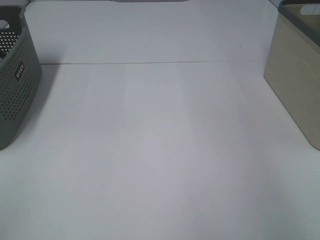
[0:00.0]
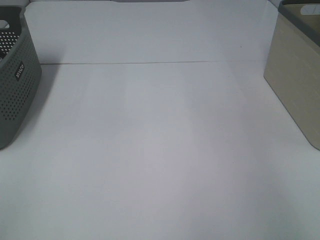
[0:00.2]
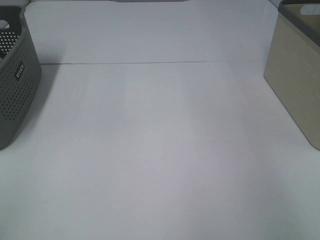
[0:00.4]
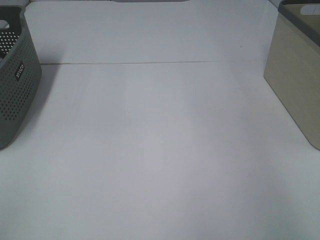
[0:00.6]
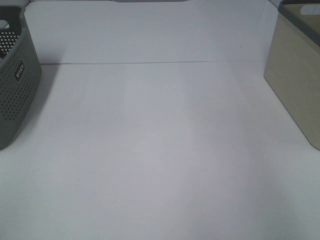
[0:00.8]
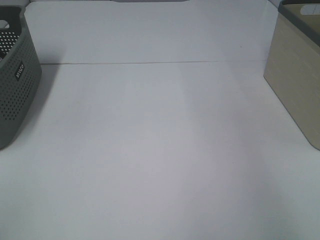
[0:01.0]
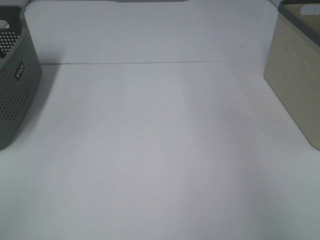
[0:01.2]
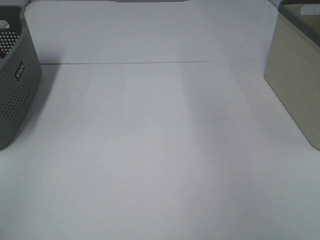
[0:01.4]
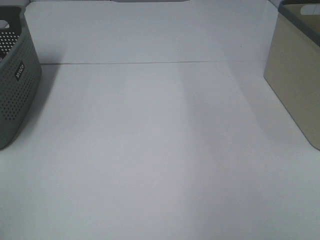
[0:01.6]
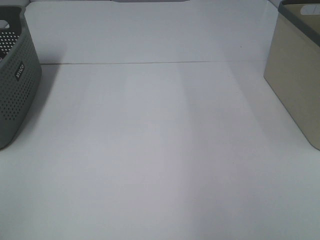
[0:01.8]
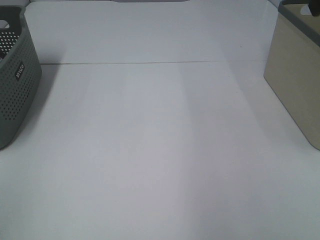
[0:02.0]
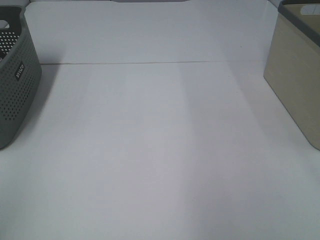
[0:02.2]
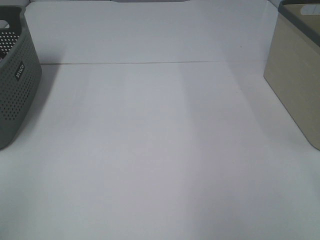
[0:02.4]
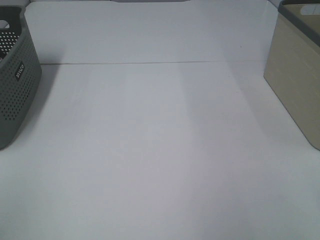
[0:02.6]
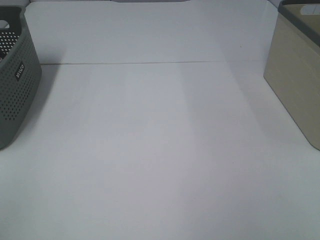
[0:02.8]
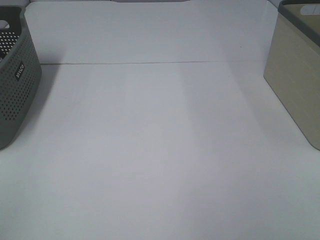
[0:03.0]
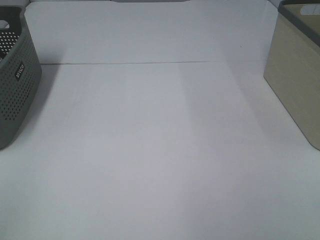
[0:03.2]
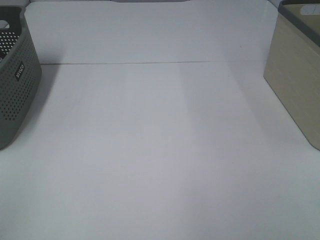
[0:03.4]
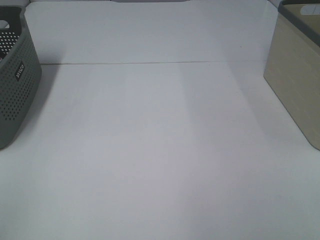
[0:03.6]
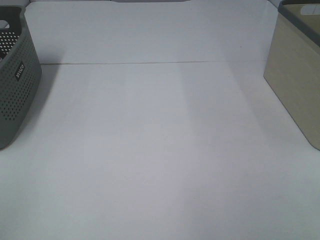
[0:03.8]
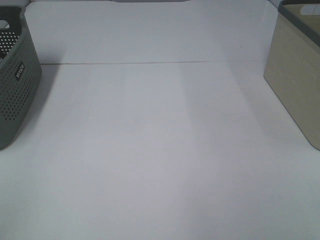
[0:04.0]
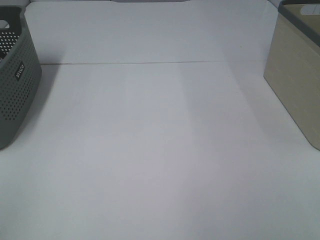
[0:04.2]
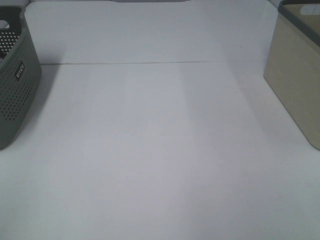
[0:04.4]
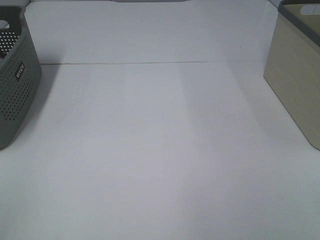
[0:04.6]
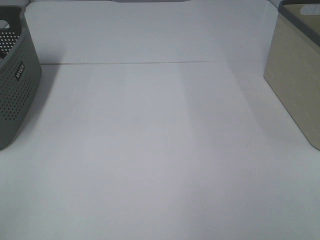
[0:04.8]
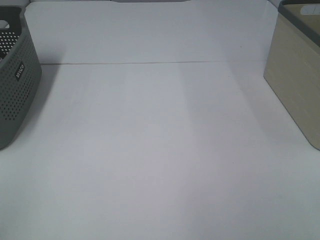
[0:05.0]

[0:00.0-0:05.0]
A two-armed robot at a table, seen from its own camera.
0:03.4 to 0:05.0: Both grippers stay put.

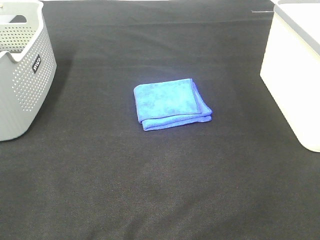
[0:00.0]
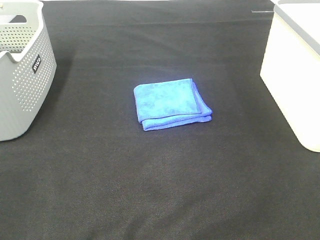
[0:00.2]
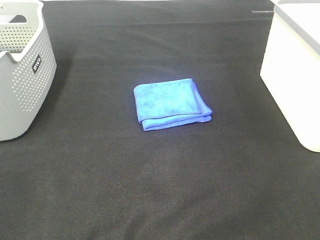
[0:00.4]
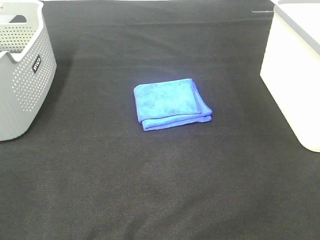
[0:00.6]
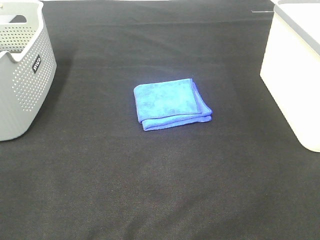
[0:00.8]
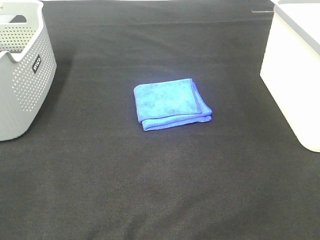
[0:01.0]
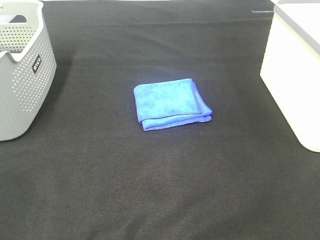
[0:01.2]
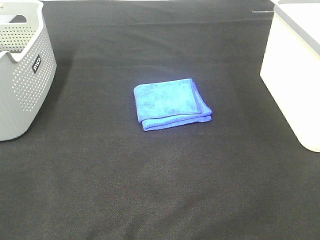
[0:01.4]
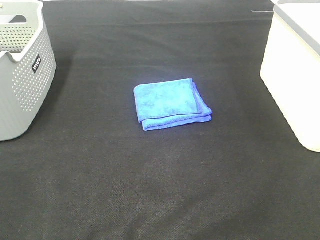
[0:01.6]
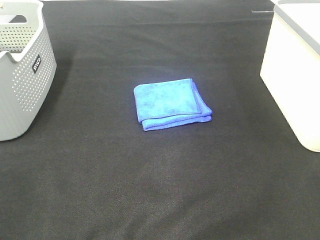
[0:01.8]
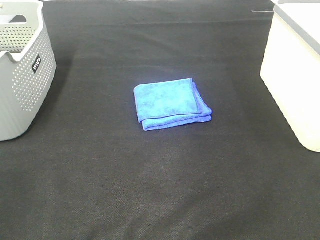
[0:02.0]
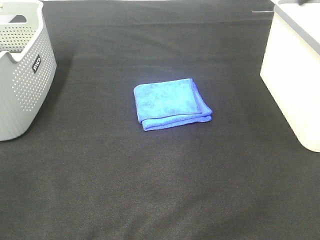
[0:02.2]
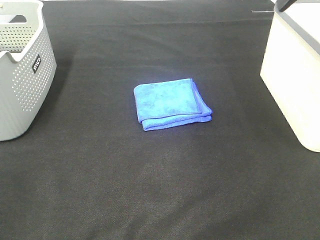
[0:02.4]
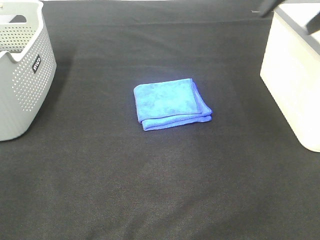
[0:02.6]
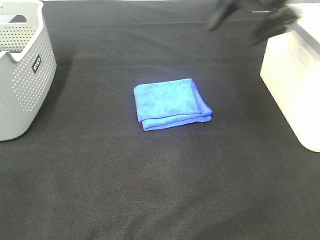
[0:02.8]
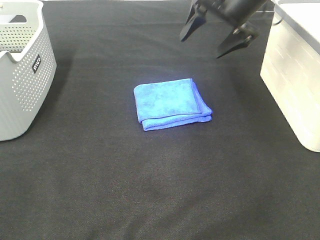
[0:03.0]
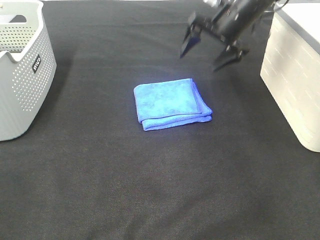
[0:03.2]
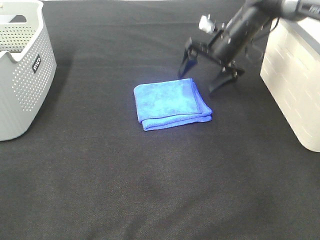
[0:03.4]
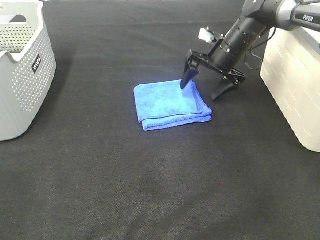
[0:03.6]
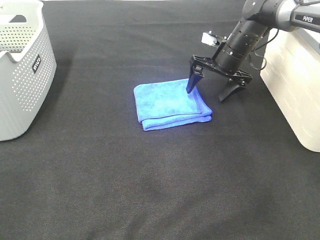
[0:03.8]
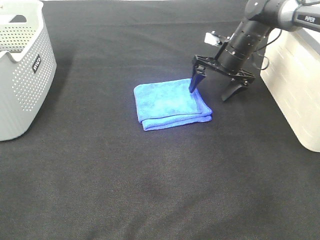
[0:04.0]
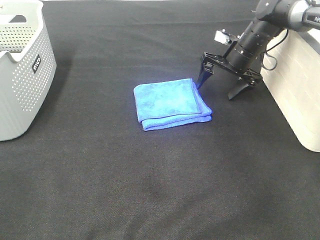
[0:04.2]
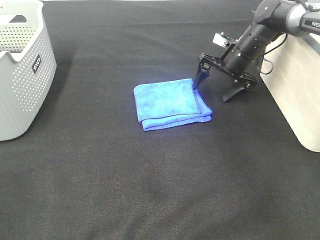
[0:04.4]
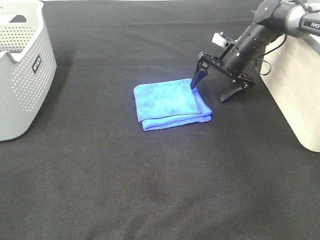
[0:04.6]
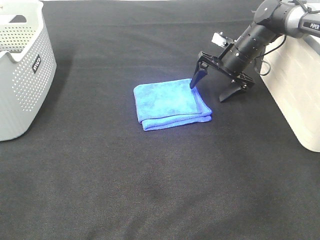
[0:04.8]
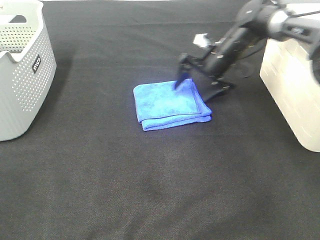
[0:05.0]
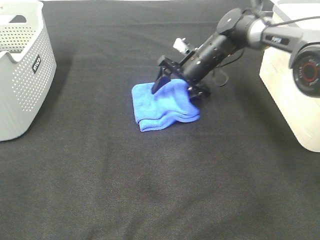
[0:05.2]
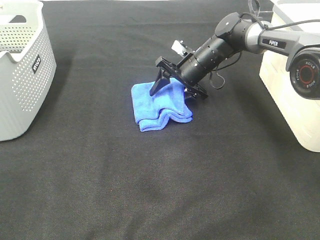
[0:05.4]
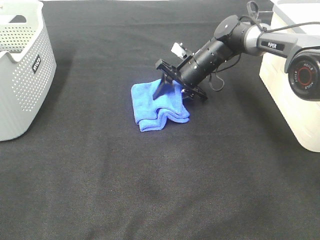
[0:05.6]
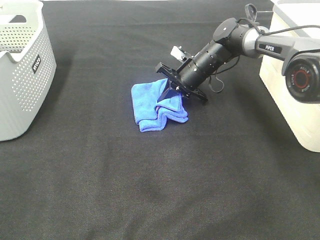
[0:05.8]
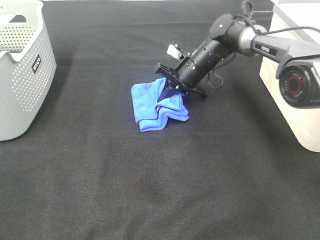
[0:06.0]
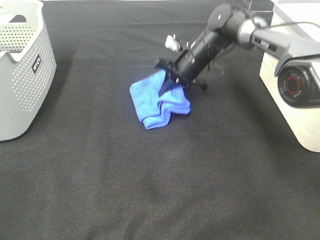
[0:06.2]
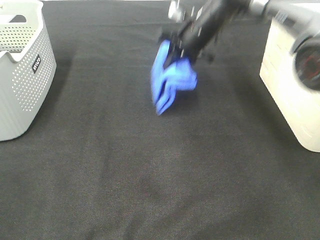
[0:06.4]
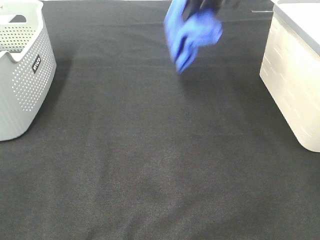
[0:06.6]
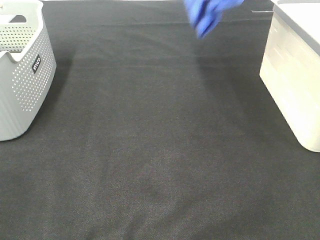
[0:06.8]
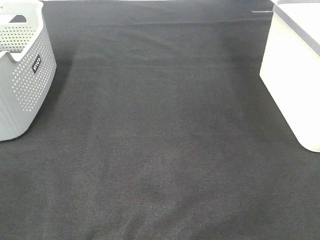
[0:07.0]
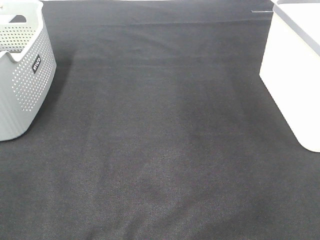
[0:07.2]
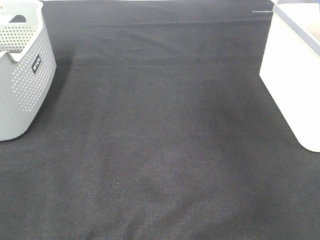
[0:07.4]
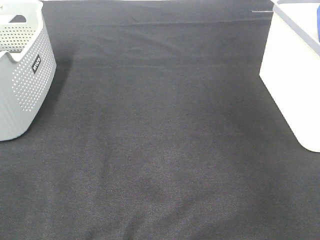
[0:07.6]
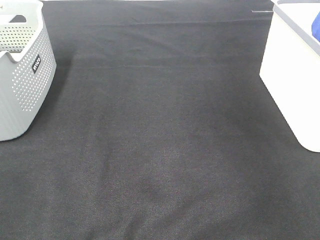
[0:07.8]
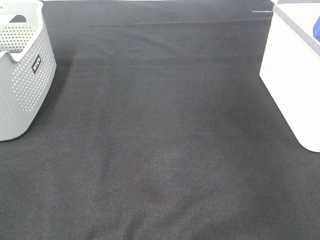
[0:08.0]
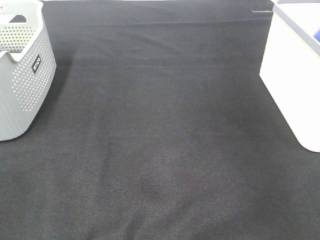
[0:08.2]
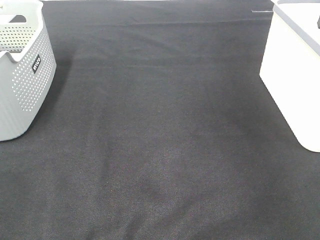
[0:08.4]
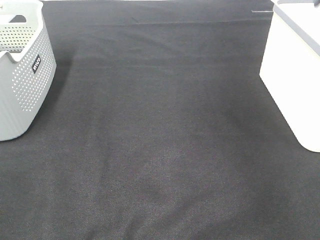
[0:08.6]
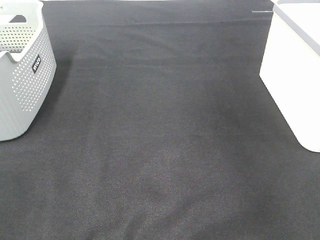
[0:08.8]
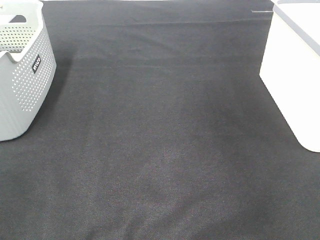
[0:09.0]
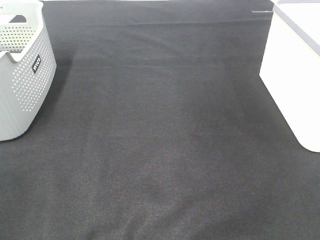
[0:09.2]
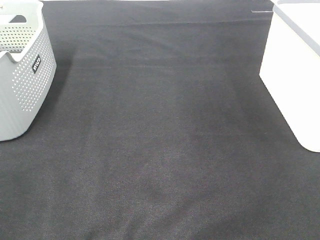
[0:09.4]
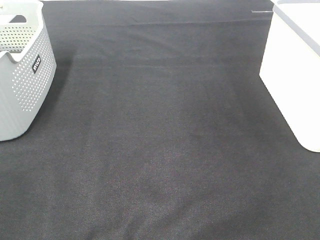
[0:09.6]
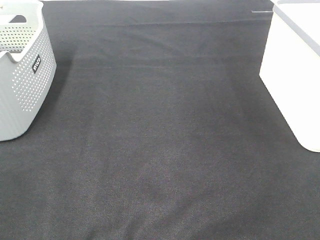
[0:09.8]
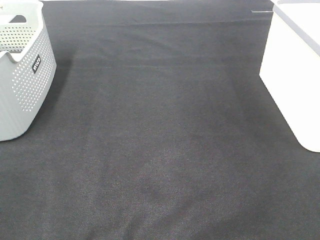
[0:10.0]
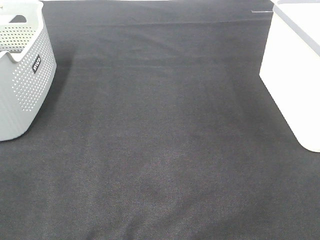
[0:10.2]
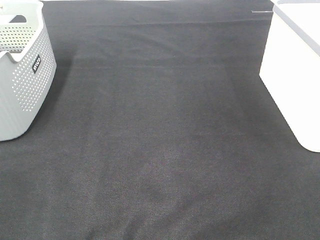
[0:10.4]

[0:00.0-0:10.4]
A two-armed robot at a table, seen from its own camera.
Step, 0:00.0 to 0:05.8: Right hand: grab the folded blue towel.
Step, 0:06.0 to 0:08.2: Right hand: place the blue towel in right basket.
0:00.0 to 0:01.4: Both grippers stay about where they are.
0:01.4 to 0:03.0: The right gripper moves forward, roughly 50 cm.
0:03.0 to 0:04.4: The right gripper shifts some 15 cm downward.
0:04.4 to 0:06.0: The right gripper shifts some 10 cm to the left, and closes its fingers.
0:06.0 to 0:07.4: The right gripper shifts some 40 cm upward and to the right.

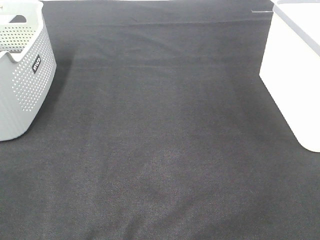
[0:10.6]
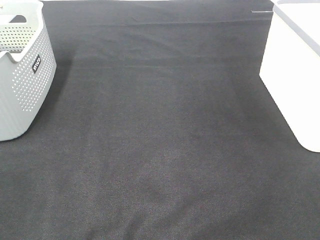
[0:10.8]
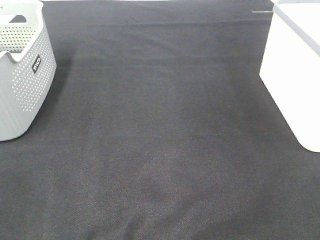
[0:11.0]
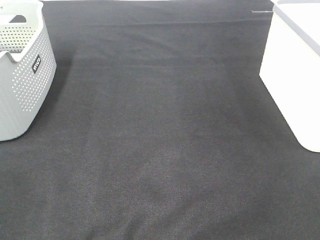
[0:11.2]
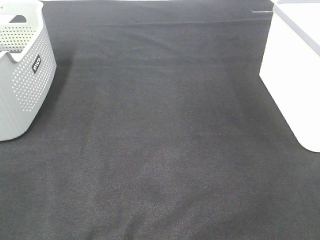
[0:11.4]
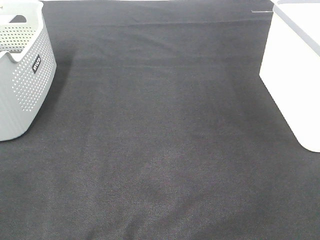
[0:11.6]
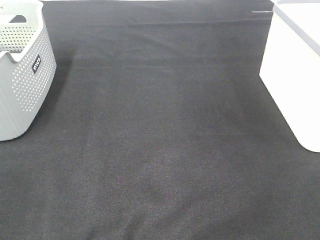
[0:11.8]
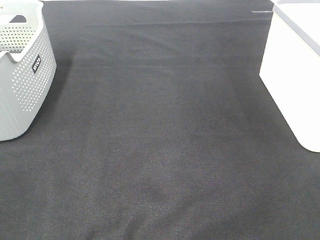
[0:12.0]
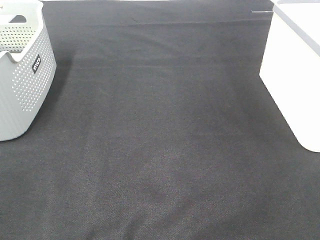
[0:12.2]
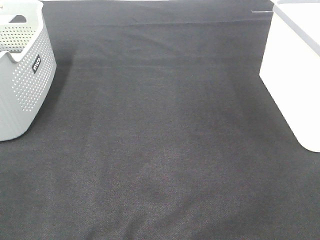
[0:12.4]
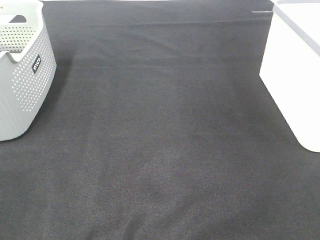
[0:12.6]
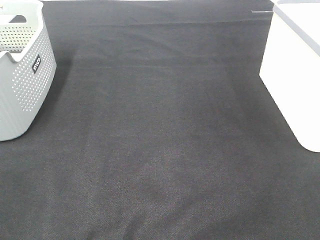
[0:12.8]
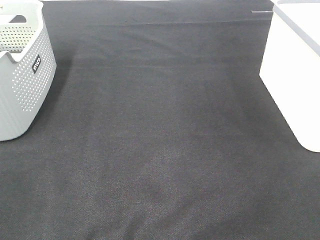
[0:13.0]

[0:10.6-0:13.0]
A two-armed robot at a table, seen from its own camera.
0:10.6 to 0:13.0: The two grippers keep their place.

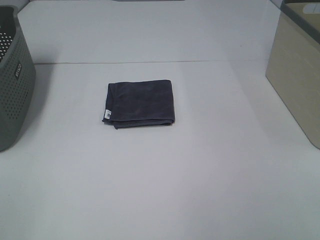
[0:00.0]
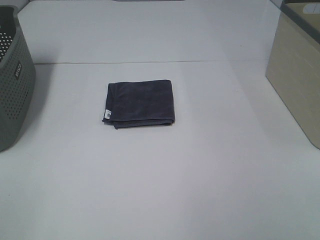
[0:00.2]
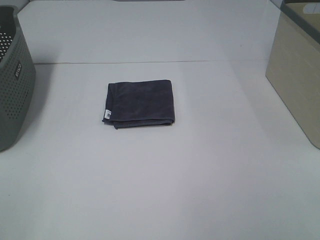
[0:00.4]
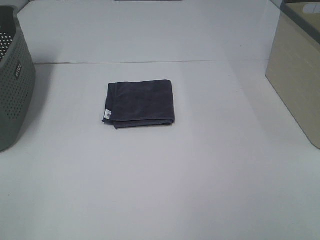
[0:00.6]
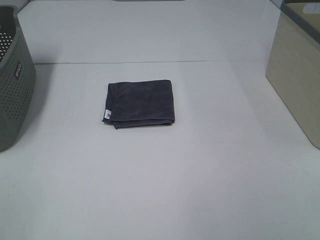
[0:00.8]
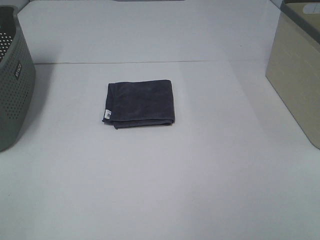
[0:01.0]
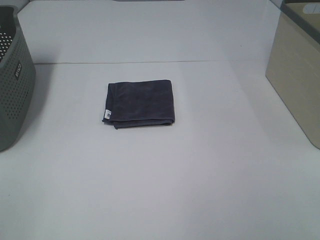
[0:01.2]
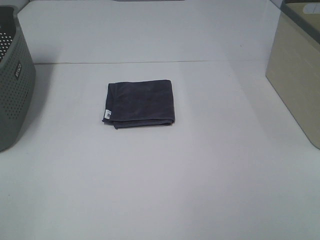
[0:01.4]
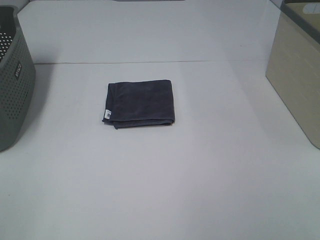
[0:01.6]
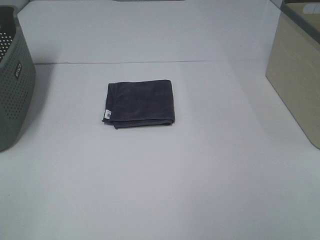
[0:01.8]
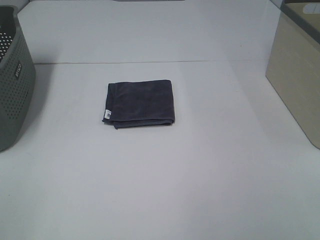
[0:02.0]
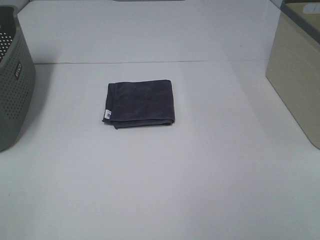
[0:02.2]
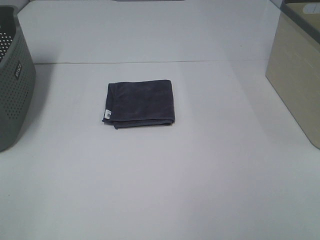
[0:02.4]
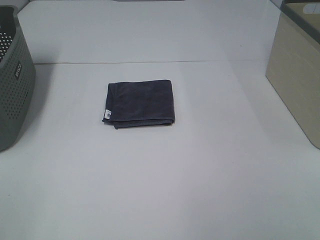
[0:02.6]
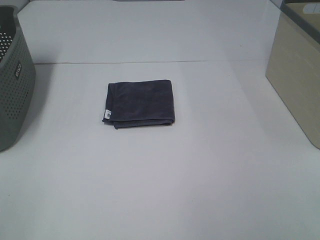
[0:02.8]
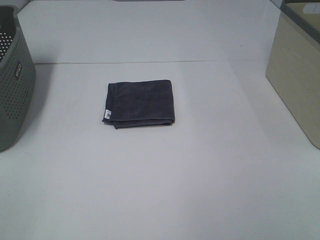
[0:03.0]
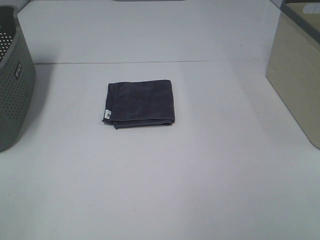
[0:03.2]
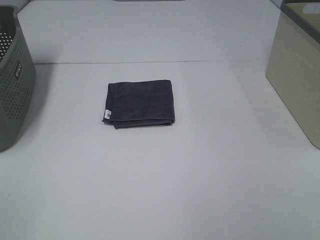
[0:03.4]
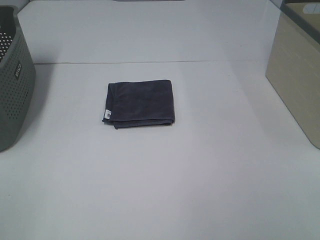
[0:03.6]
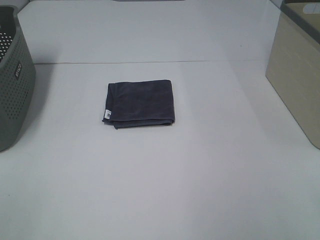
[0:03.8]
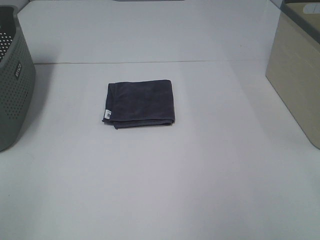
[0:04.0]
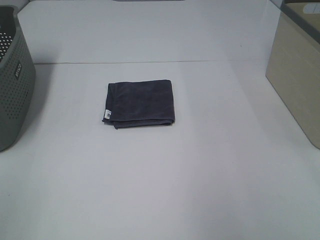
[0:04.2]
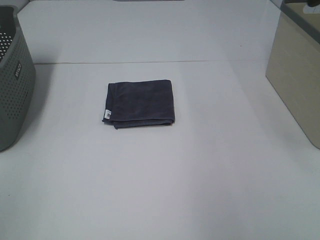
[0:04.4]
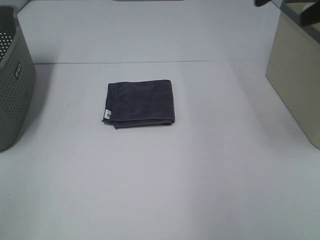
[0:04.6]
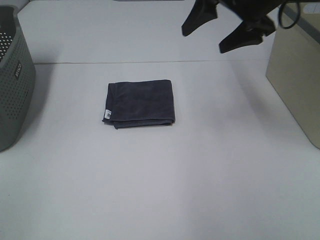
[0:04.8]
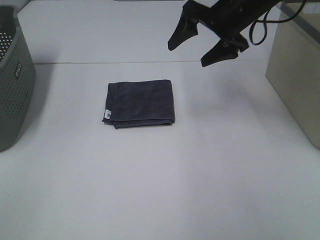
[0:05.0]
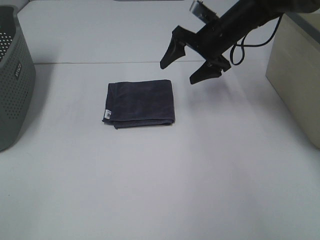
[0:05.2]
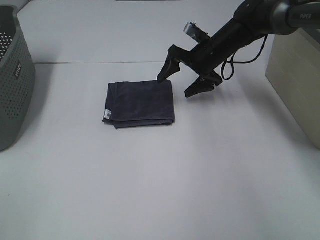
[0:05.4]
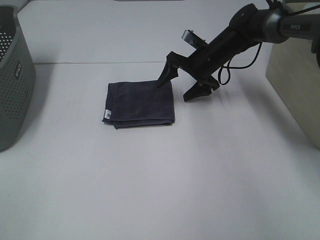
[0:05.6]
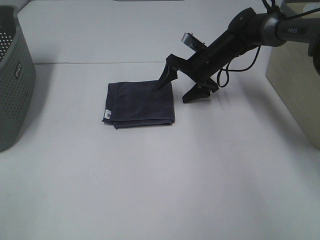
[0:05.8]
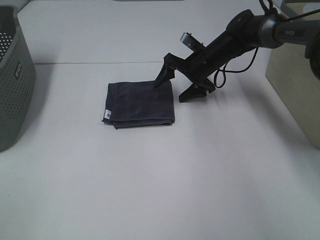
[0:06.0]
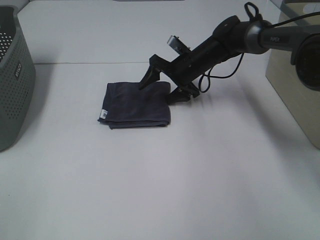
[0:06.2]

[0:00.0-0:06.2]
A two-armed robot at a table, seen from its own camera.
0:00.0 to 0:03.2: Neither gripper changes place.
0:03.2 to 0:04.6: The right gripper heads forward, covering some 30 cm.
0:04.6 to 0:06.2: The right gripper goes some 35 cm downward, forward and to the left.
